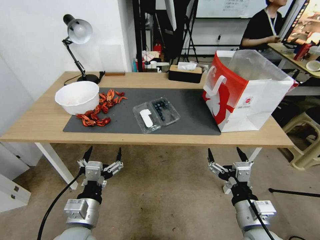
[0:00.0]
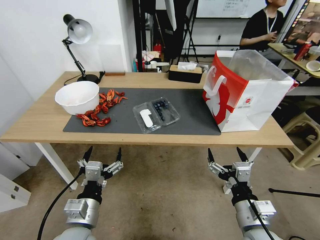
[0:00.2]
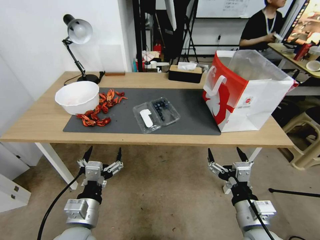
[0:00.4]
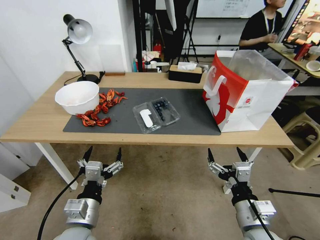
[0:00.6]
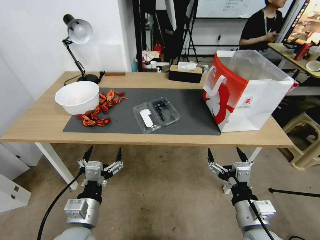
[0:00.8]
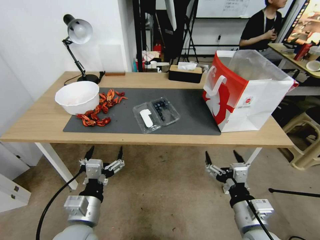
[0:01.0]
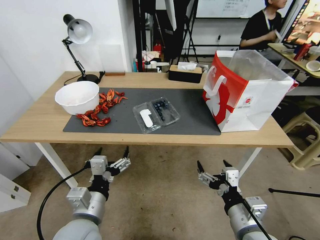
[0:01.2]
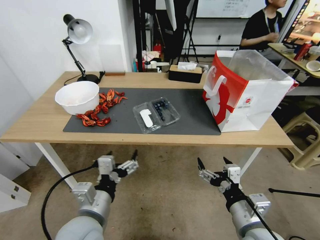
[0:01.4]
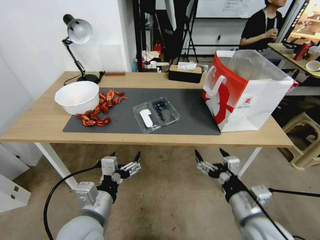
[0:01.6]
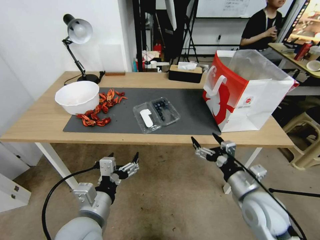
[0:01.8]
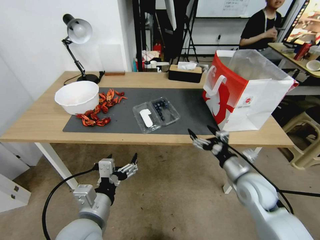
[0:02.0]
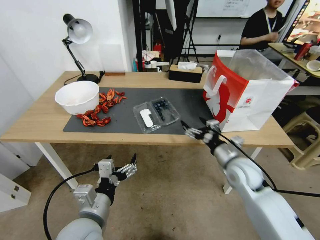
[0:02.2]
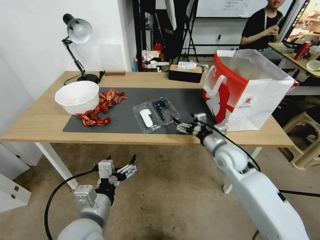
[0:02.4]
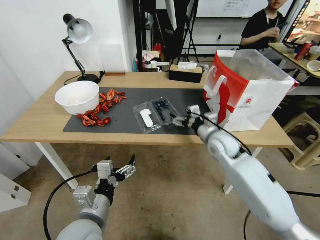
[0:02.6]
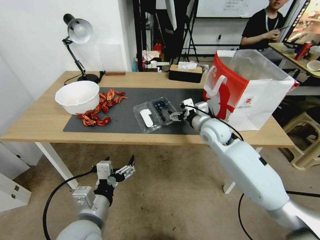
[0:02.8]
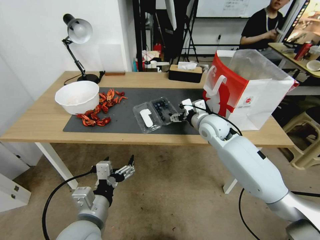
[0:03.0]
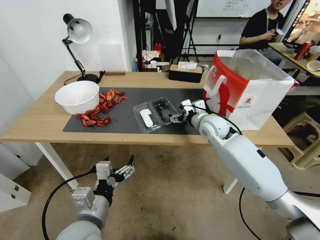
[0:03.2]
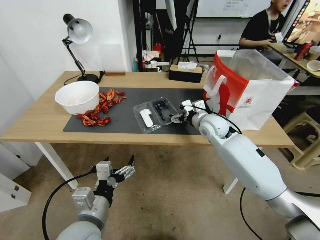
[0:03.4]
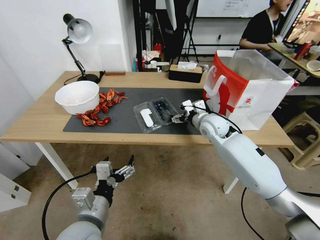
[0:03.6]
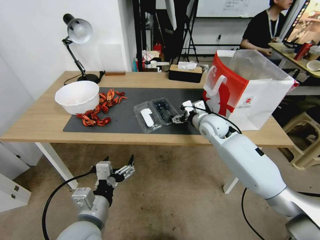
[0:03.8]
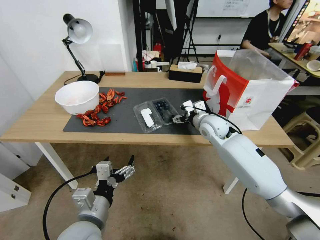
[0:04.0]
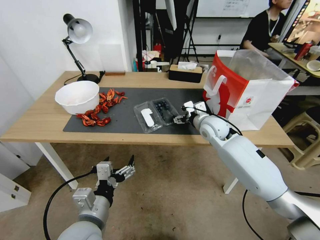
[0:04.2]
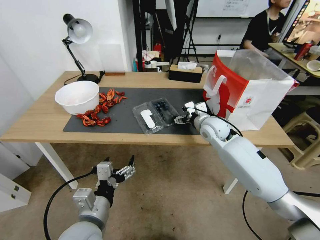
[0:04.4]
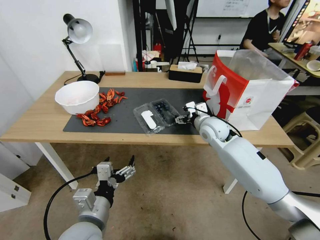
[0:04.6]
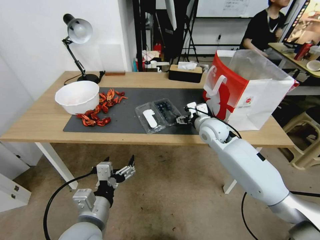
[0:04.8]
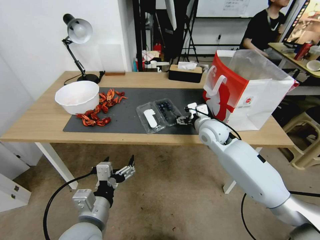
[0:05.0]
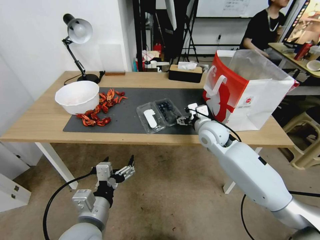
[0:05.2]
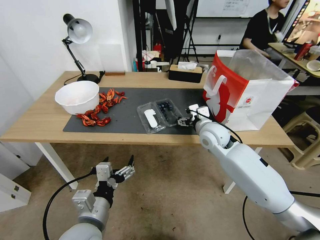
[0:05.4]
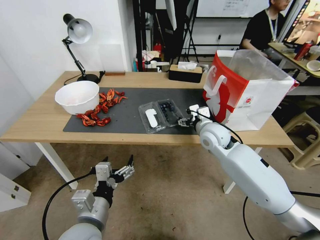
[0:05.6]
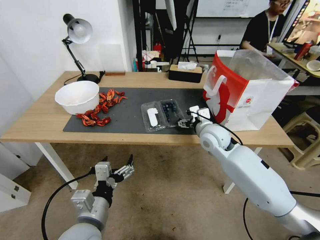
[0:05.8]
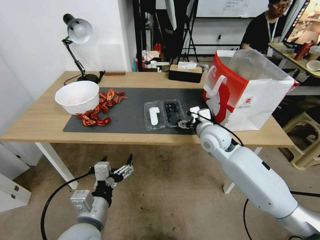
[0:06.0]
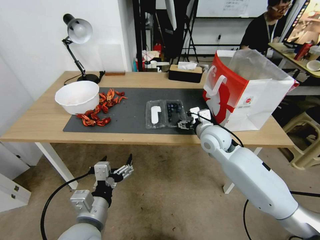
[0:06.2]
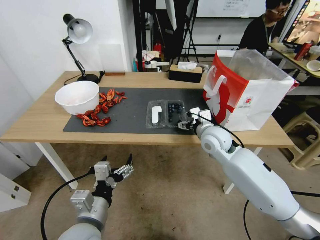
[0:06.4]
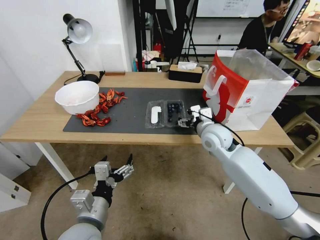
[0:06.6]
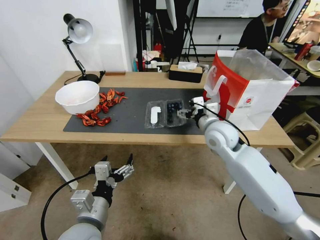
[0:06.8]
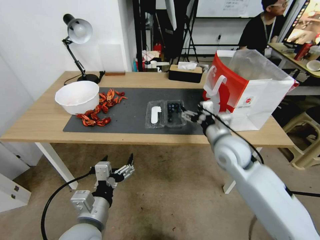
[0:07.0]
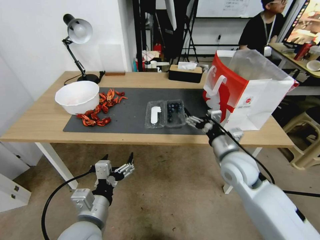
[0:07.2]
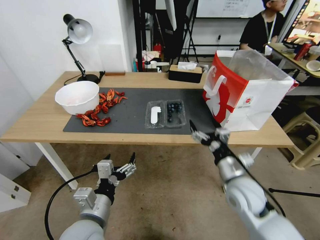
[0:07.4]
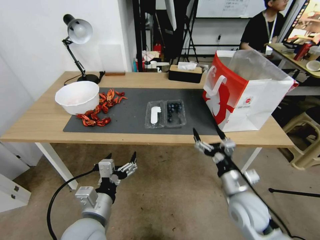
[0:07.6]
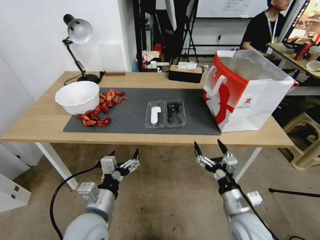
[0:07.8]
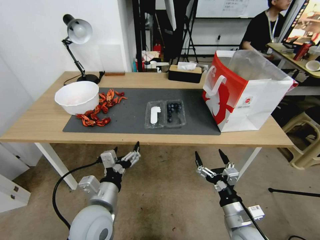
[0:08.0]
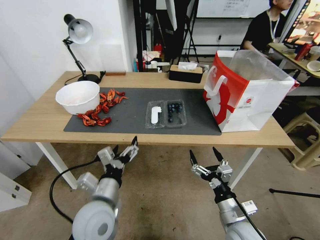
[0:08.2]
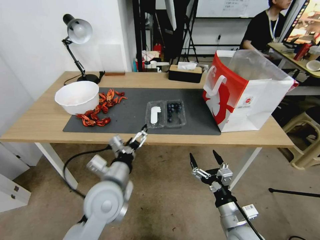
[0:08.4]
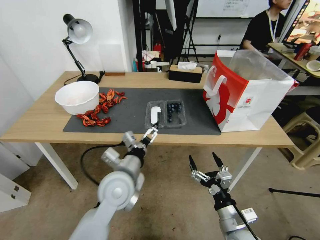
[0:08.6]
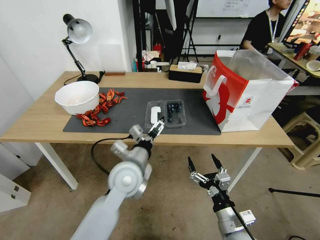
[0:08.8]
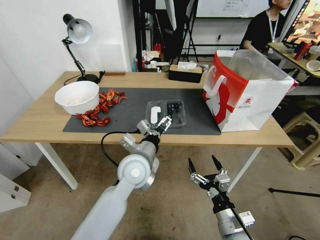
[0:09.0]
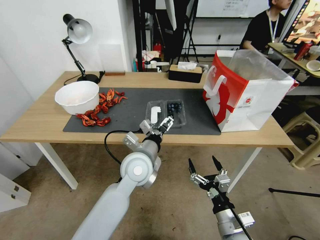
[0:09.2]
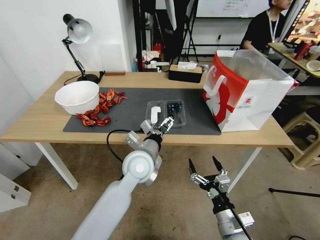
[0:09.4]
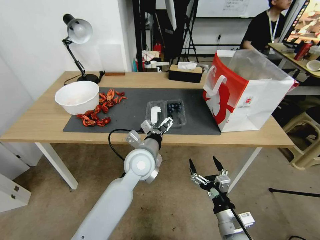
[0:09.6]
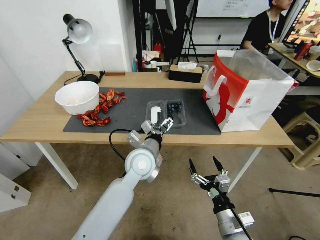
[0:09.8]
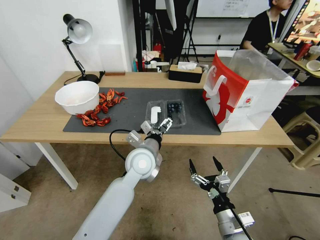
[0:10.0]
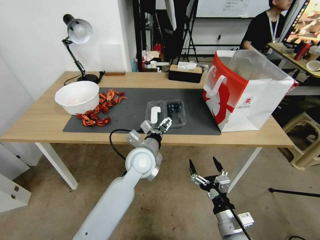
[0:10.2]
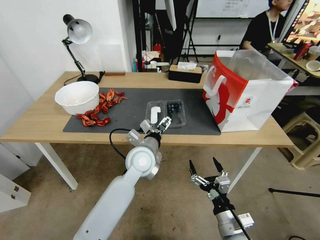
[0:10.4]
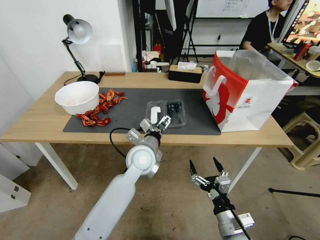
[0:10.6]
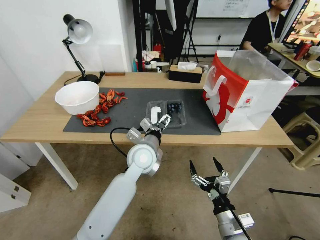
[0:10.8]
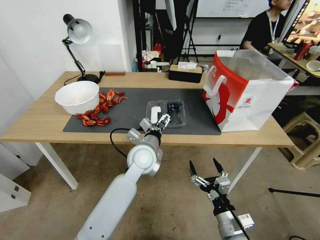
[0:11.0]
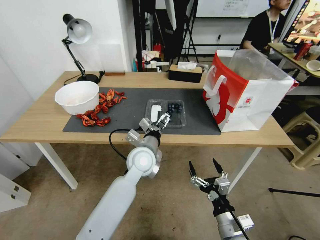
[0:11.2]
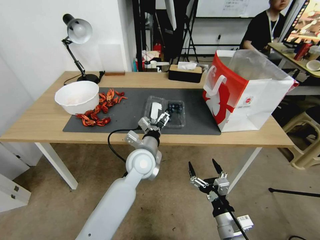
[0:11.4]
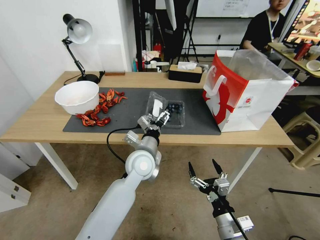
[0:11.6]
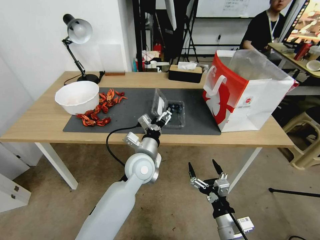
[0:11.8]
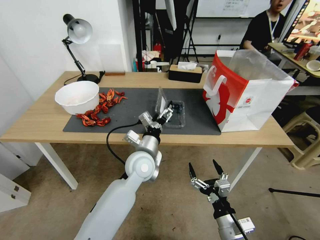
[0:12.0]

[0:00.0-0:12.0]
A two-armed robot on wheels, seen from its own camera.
Task of the whole recording: Close the takeout container lid, then place the container into the takeout bag.
0:01.6 to 0:03.0: The right gripper heads forward, covering roughly 30 cm.
0:03.0 to 0:06.0: The grippers move only a little.
0:06.0 to 0:07.6: The right gripper heads backward and downward, covering approximately 20 cm.
0:07.6 to 0:09.0: The left gripper travels forward and to the right by some 20 cm, while the right gripper goes roughly 10 cm backward.
0:09.0 to 0:10.4: The grippers make only small movements.

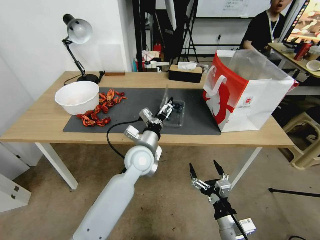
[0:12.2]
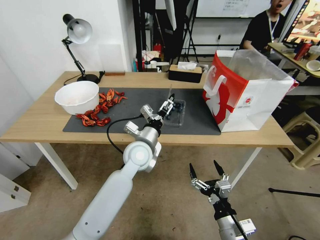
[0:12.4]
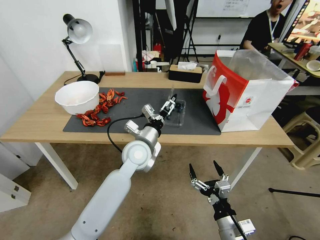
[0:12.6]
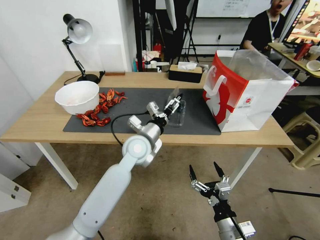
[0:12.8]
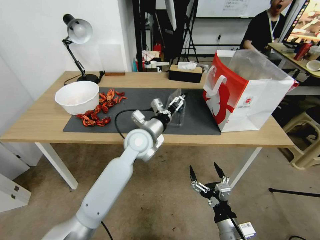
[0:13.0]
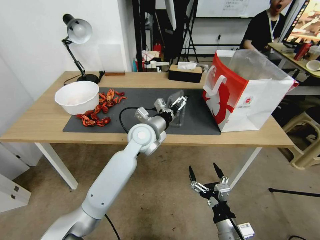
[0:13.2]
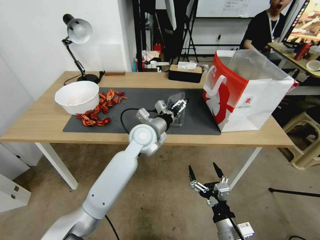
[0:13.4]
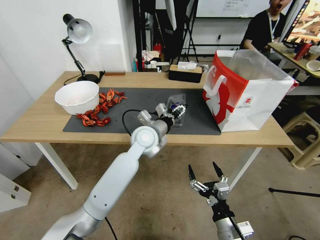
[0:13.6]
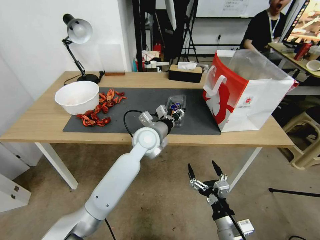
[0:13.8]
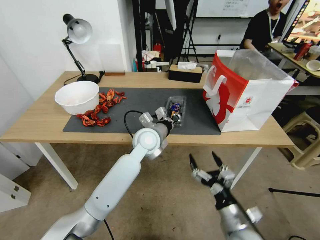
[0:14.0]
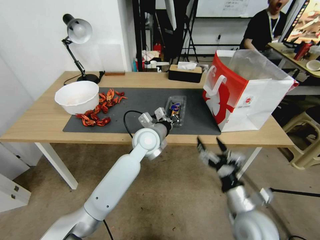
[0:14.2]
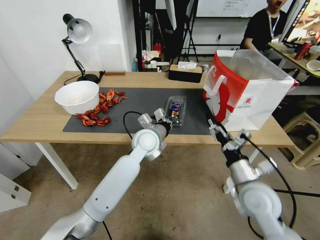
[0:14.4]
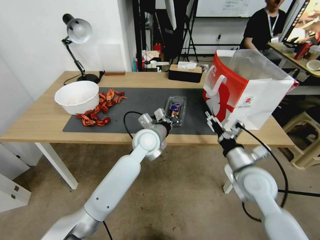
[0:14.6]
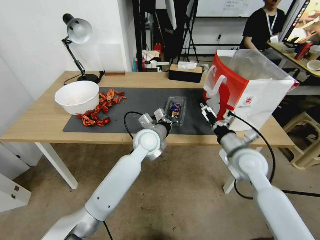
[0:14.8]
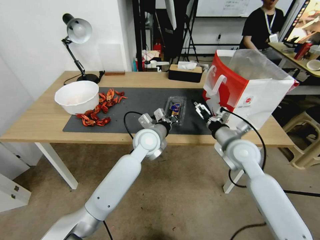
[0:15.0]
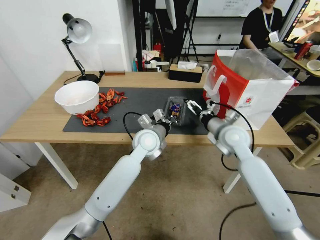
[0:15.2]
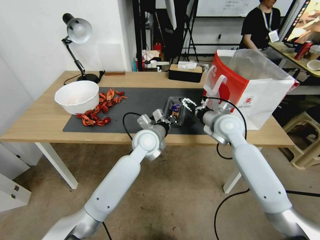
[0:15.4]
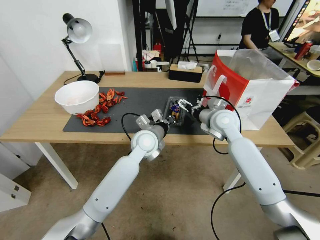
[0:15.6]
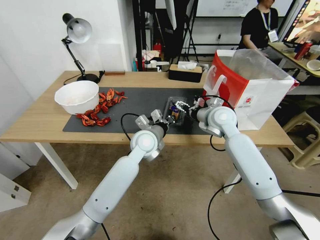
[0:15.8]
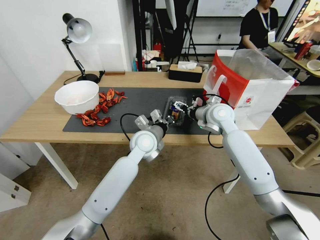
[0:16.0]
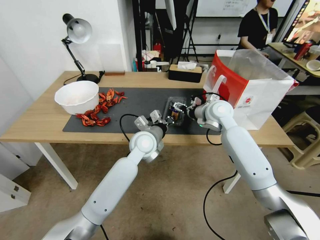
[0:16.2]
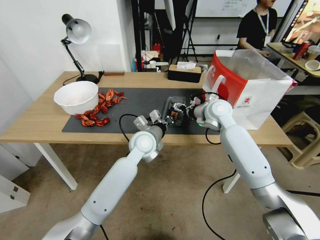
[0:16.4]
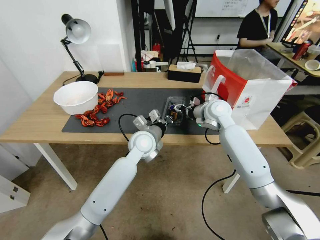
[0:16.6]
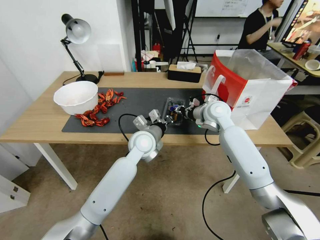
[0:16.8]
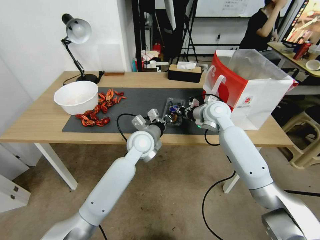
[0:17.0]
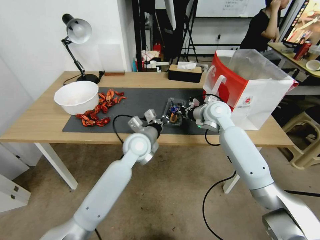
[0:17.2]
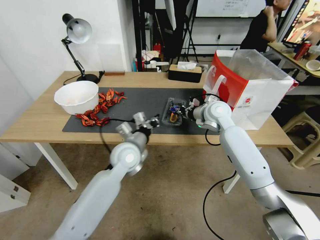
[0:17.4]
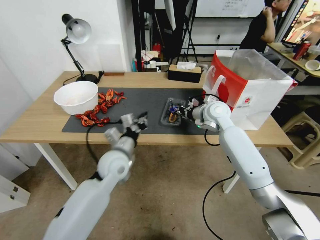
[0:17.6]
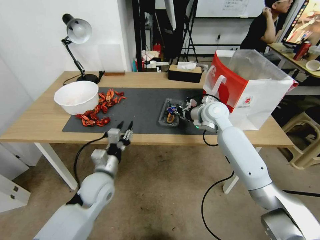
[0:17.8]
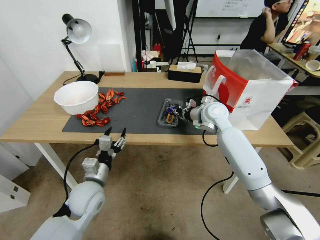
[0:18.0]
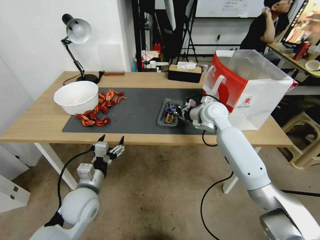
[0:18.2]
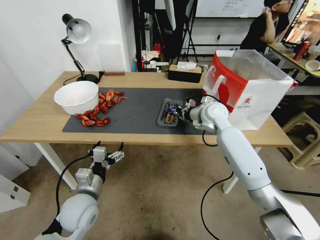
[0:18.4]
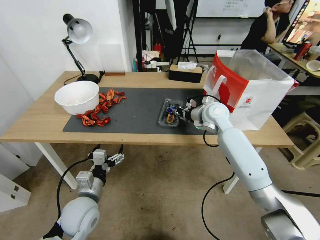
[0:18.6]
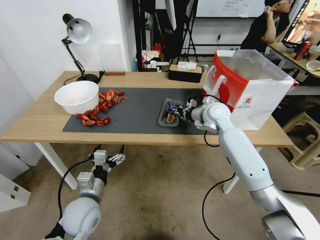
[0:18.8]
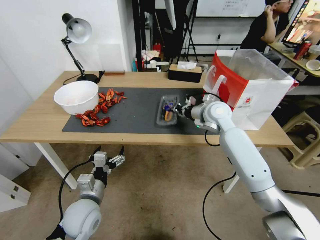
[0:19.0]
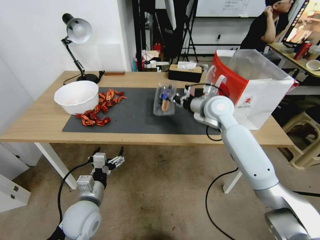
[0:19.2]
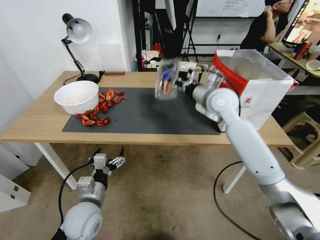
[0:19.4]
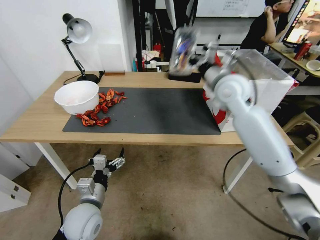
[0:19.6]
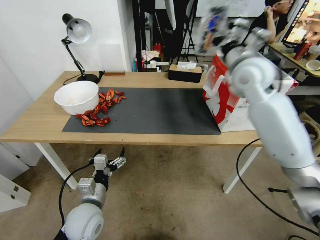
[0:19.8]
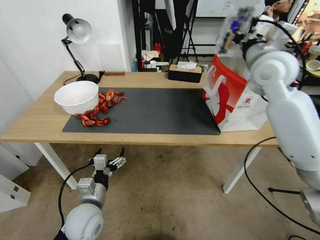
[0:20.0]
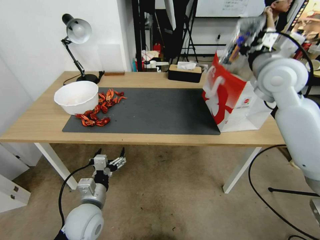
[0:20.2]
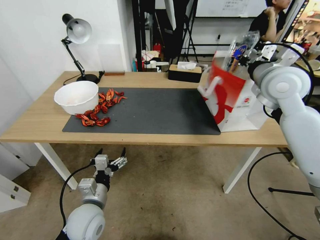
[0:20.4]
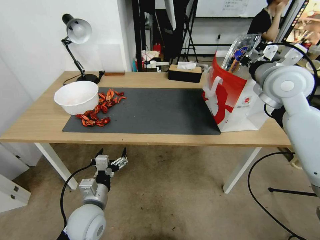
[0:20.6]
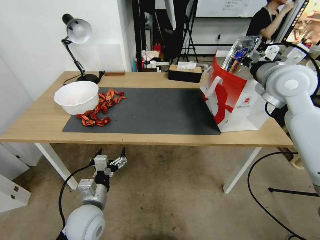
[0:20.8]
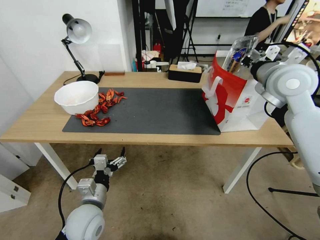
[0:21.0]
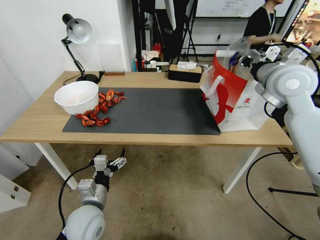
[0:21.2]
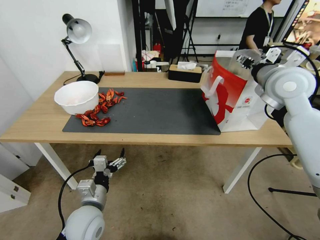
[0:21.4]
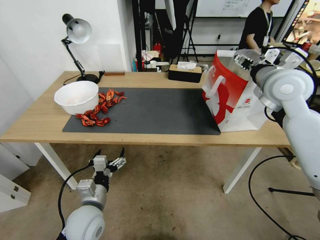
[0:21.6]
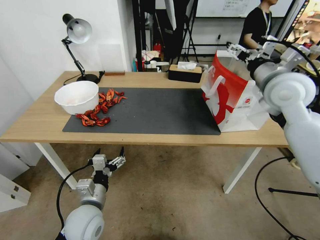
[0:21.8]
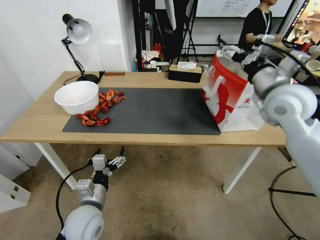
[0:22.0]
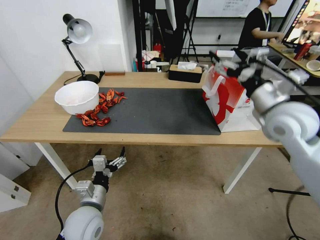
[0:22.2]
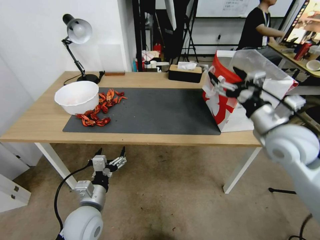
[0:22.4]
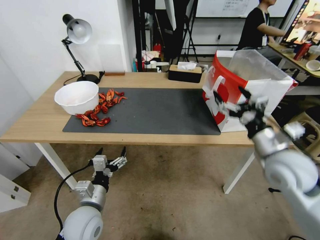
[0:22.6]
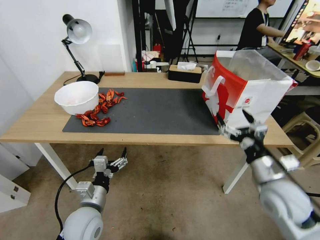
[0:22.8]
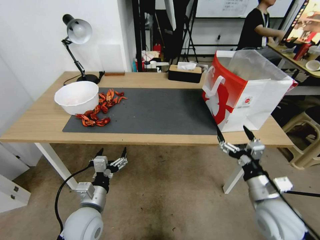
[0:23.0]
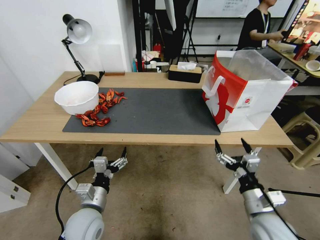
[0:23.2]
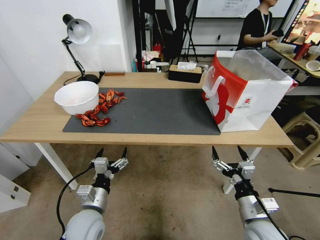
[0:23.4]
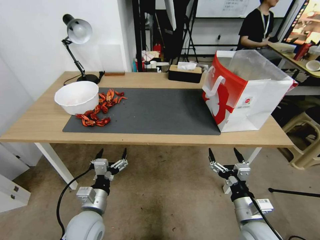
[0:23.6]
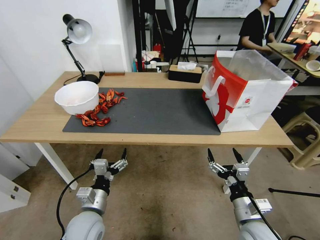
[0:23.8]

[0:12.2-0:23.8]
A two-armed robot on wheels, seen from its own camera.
Task of the whole recording: Close the takeout container lid, then place the container into the takeout bag.
0:12.2 to 0:13.6: The left gripper shifts roughly 5 cm forward, and closes.
0:13.6 to 0:15.0: The left gripper closes up, while the right gripper heads forward and upward, covering some 30 cm.
0:15.0 to 0:16.6: The right gripper travels forward by some 15 cm, and closes up.
0:16.6 to 0:18.0: The right gripper closes. The left gripper is displaced to the left, backward and downward by some 20 cm, and opens its fingers.
0:18.0 to 0:19.4: The right gripper heads upward, covering some 10 cm. The left gripper shifts some 5 cm backward, and opens up.
0:19.4 to 0:21.0: The right gripper moves to the right and upward, some 15 cm.
0:21.0 to 0:22.4: The right gripper heads backward and downward, covering about 15 cm, and opens.
0:22.4 to 0:23.8: The right gripper goes roughly 25 cm downward and backward.
